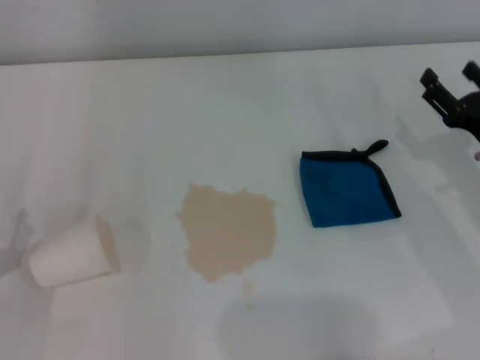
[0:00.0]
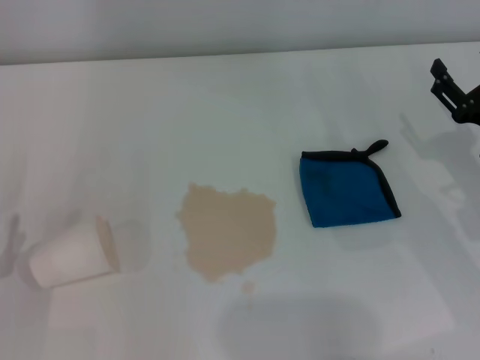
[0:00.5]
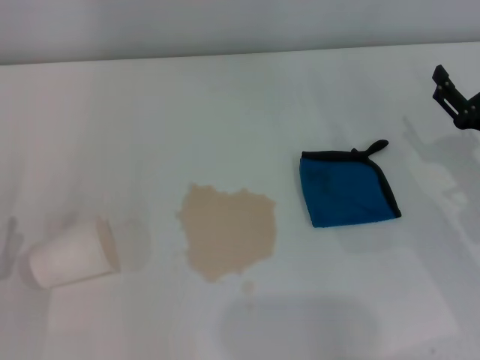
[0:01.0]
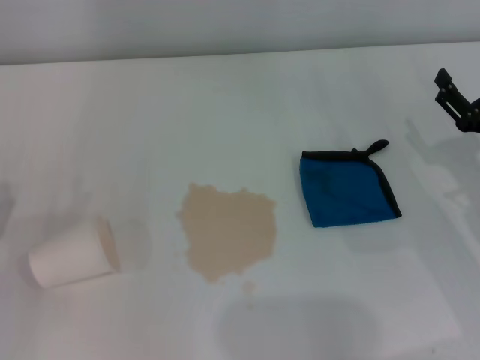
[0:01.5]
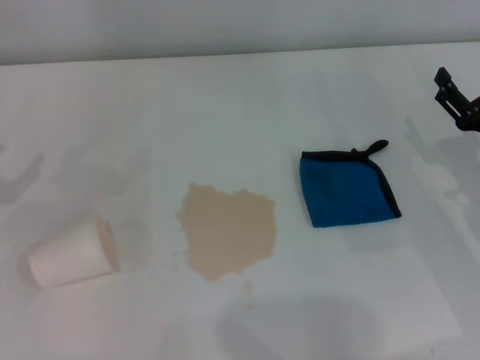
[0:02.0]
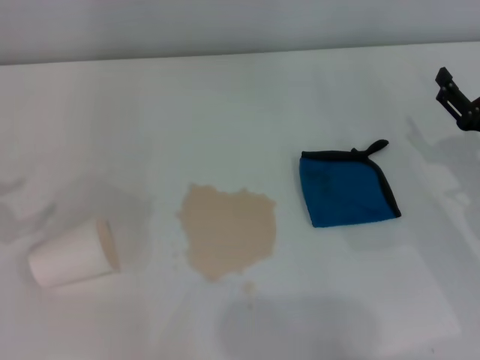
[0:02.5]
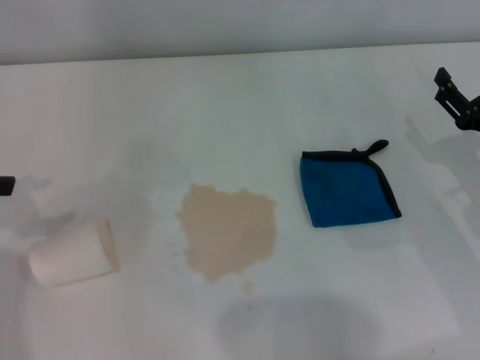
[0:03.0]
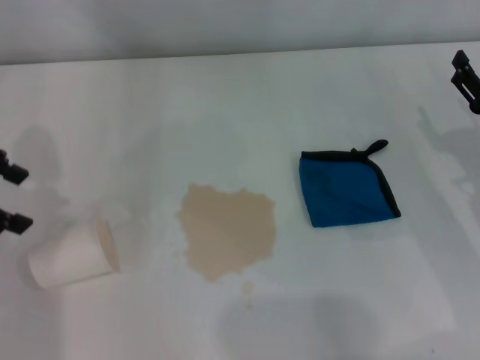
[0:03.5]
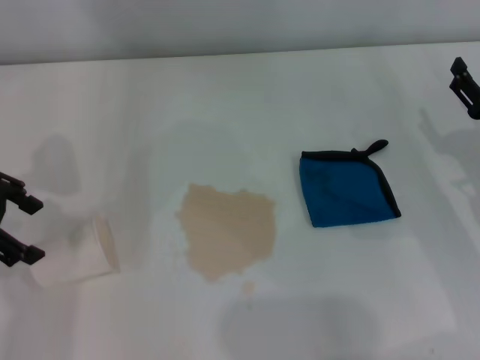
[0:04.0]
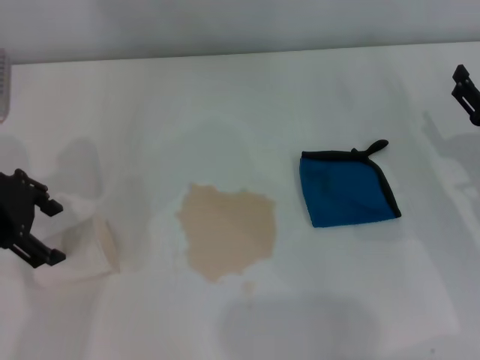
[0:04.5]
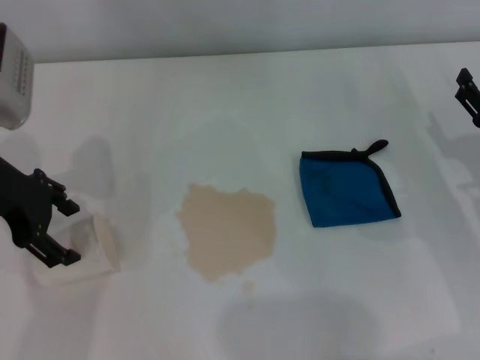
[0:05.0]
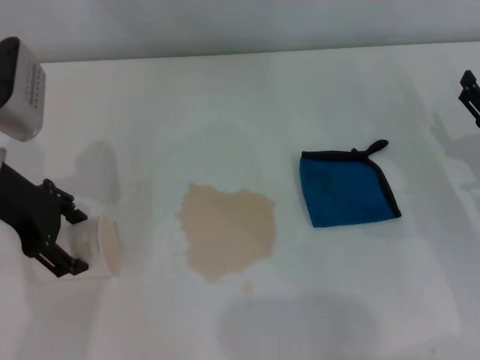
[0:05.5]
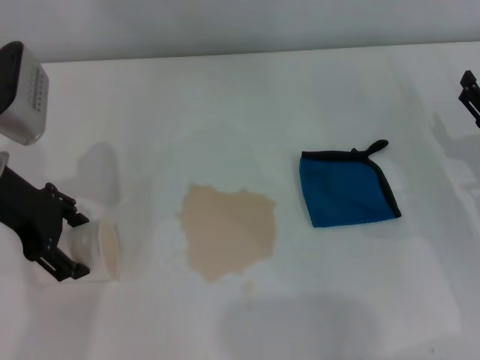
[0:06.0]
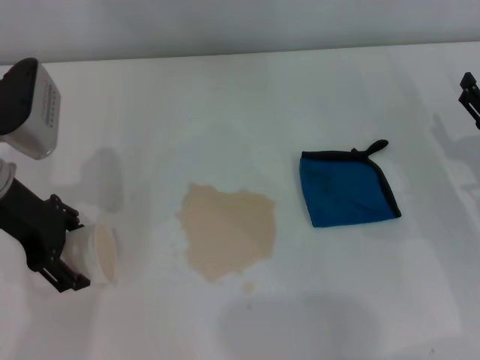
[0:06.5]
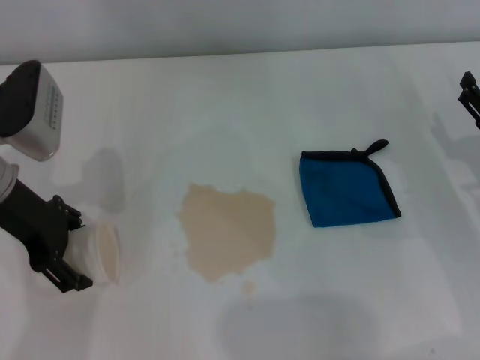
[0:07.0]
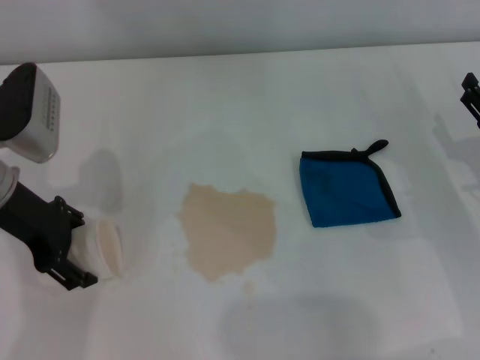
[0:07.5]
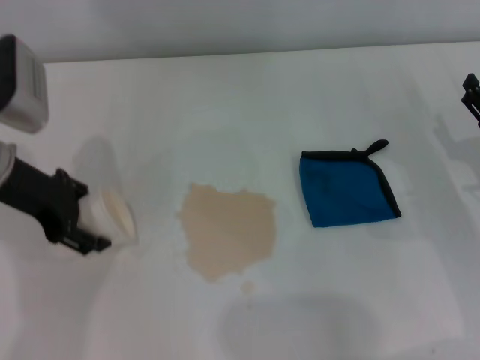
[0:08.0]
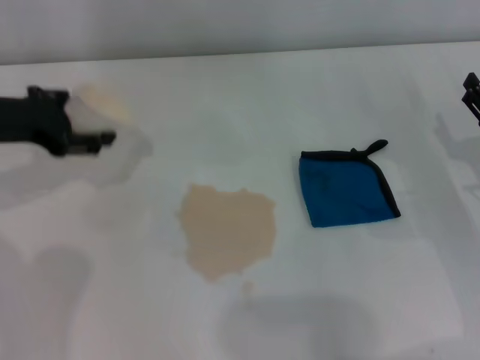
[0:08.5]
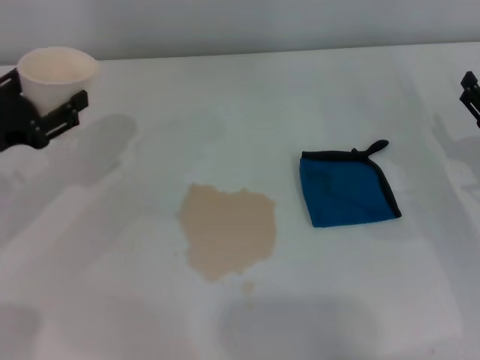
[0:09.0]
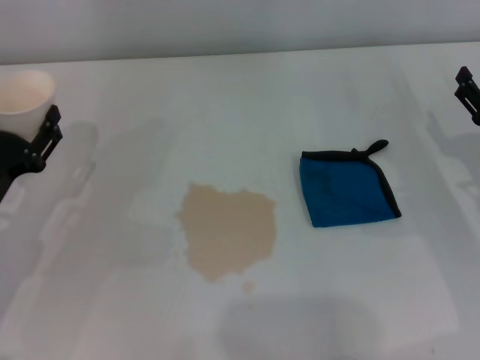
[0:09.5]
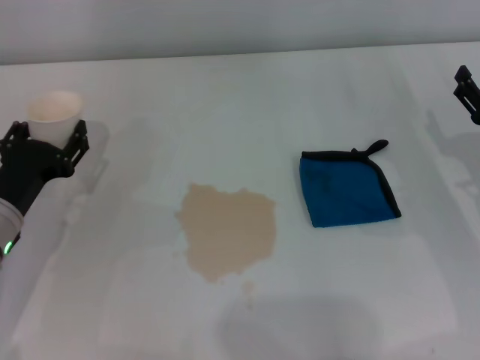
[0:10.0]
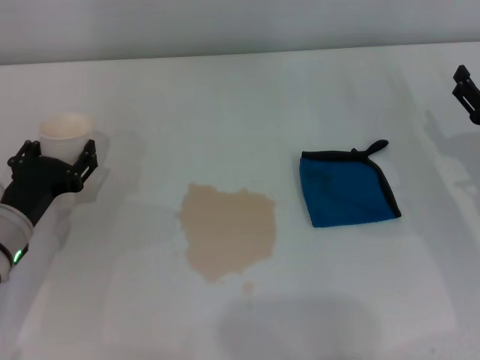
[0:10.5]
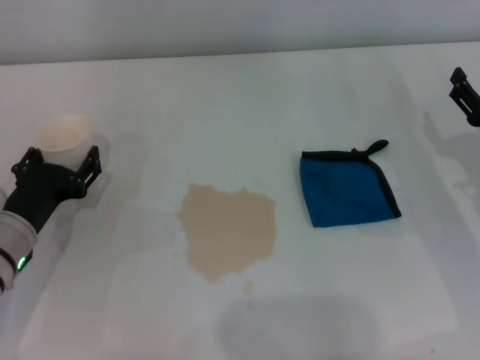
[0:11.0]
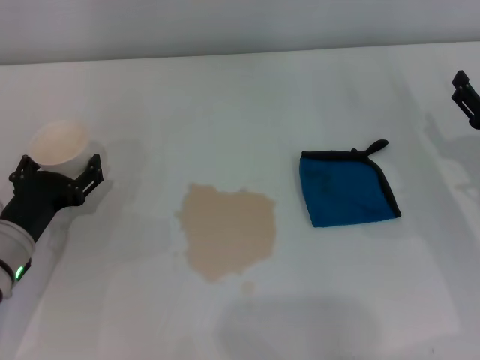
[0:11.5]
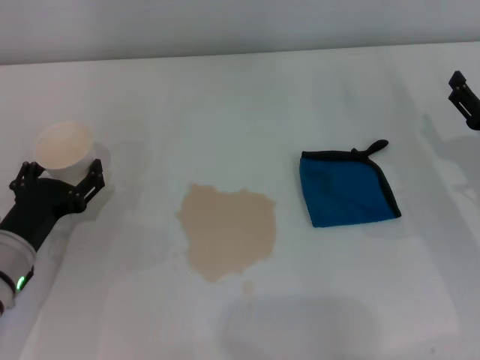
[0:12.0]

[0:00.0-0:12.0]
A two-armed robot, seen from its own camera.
Step, 0:00.0 to 0:06.0: Grasp the paper cup with the left gripper.
Step, 0:06.5 to 0:11.5: Stand the paper cup upright with the left gripper.
0:02.0 to 0:04.0: The left gripper travels upward, to the right and forward by about 15 cm.
0:04.0 to 0:06.0: The left gripper goes roughly 5 cm to the right.
0:06.0 to 0:08.0: The left gripper closes its fingers.
0:08.0 to 0:10.0: The left gripper heads downward and backward, covering approximately 15 cm, and closes up.
0:10.0 to 0:12.0: The left gripper opens up.

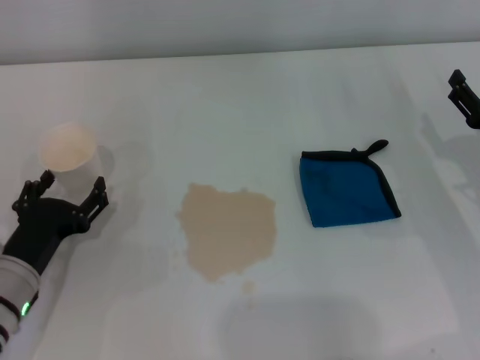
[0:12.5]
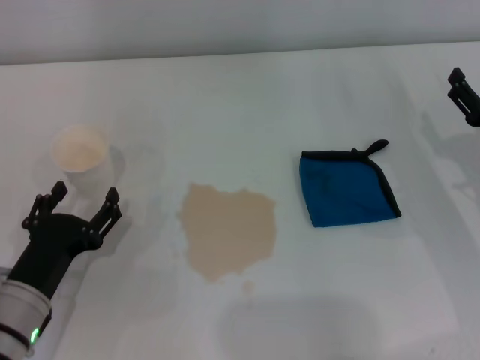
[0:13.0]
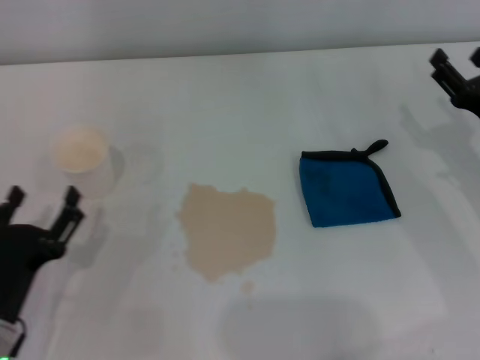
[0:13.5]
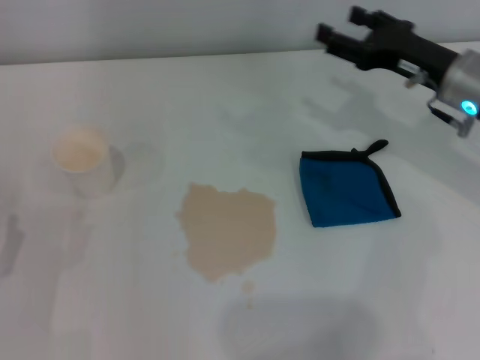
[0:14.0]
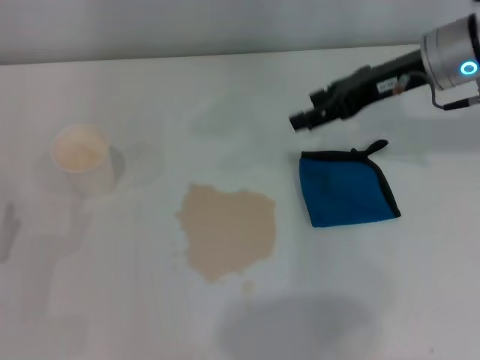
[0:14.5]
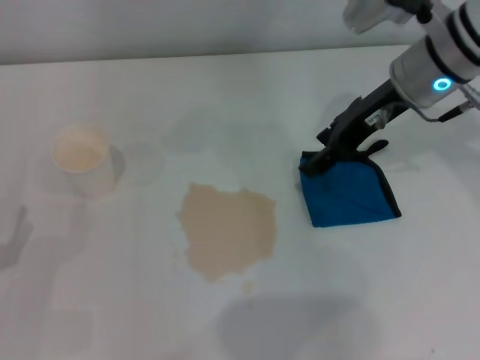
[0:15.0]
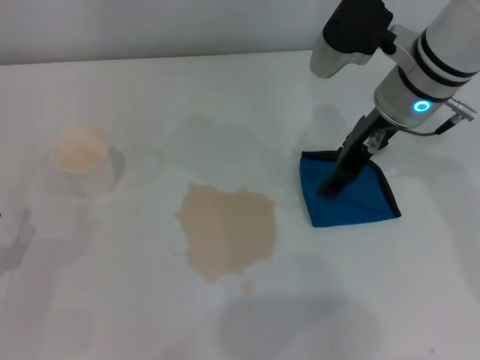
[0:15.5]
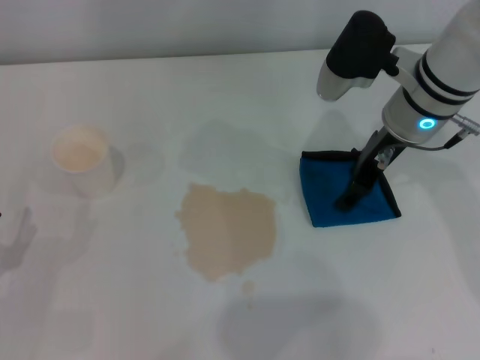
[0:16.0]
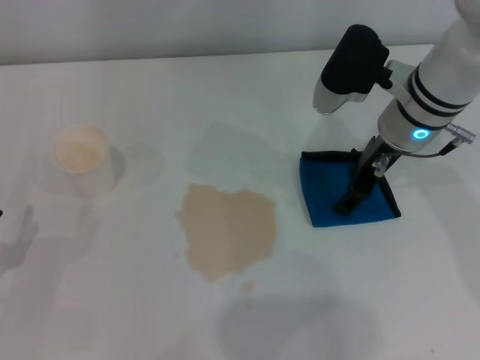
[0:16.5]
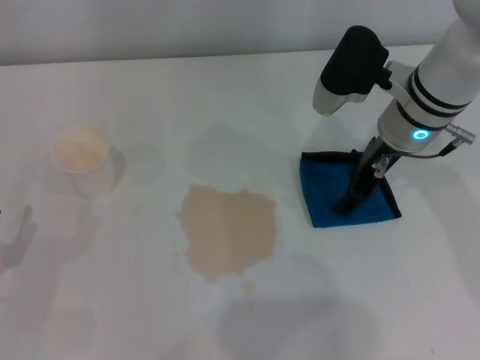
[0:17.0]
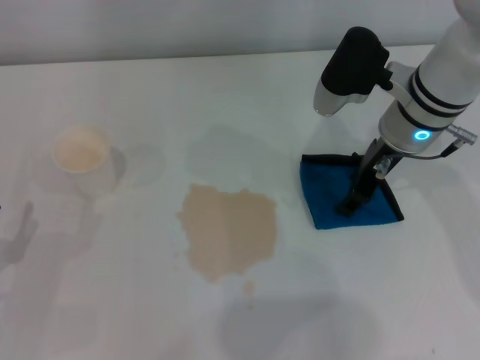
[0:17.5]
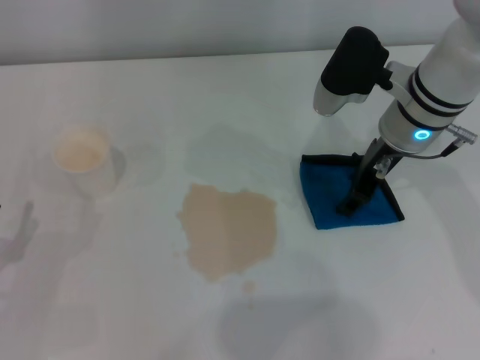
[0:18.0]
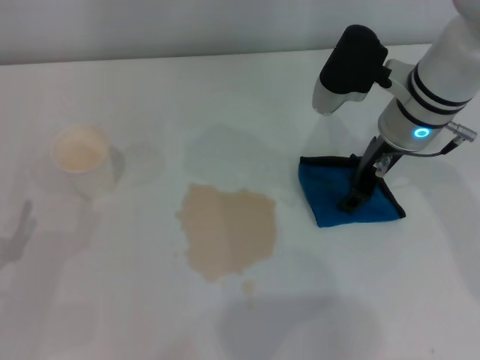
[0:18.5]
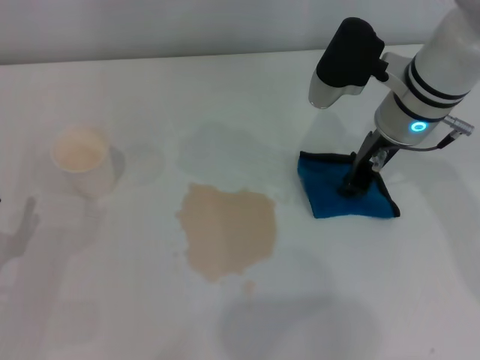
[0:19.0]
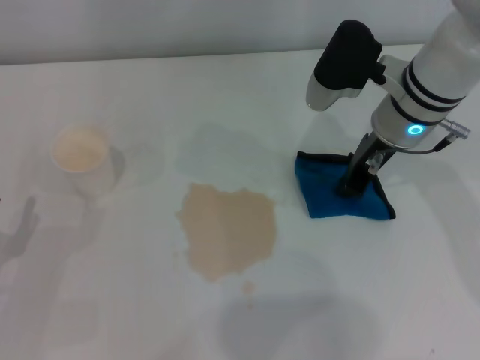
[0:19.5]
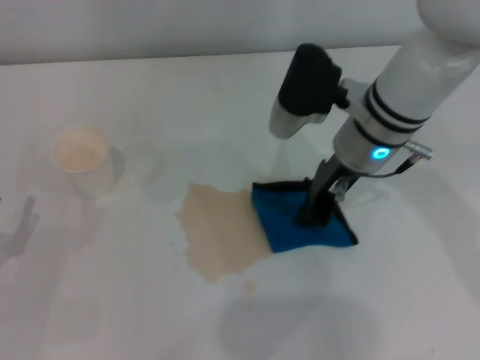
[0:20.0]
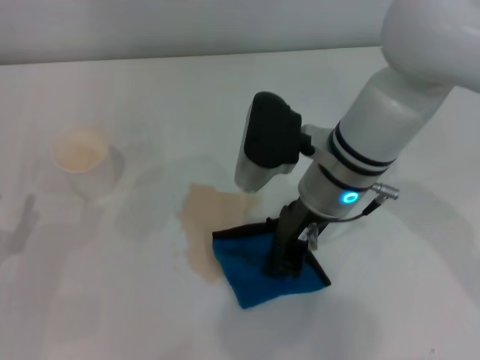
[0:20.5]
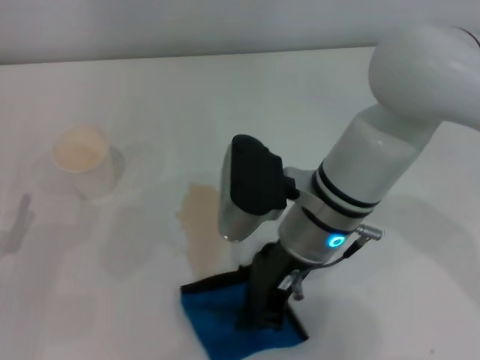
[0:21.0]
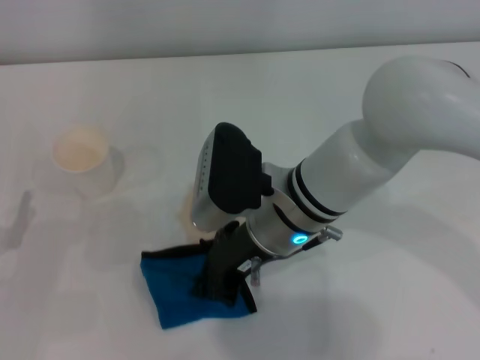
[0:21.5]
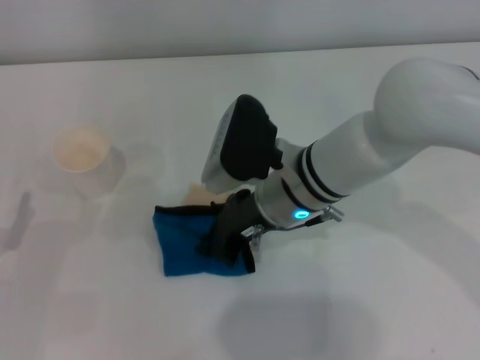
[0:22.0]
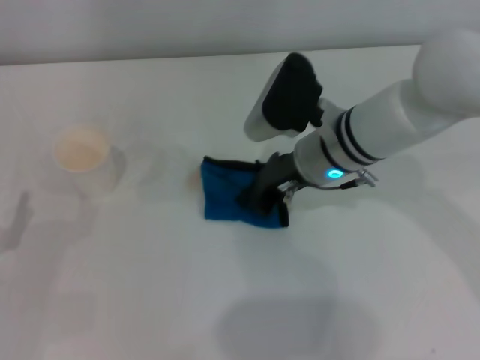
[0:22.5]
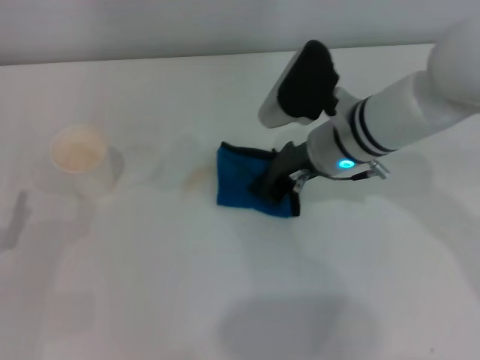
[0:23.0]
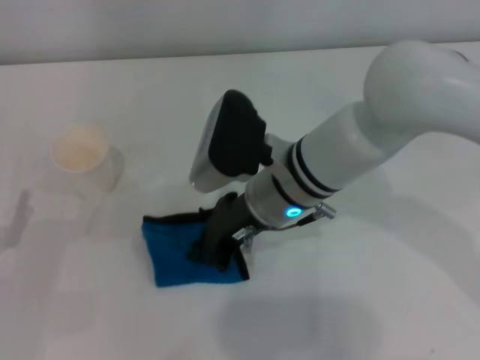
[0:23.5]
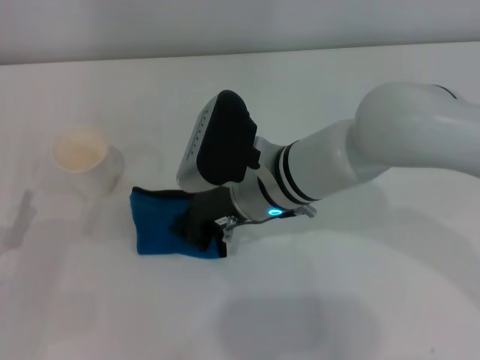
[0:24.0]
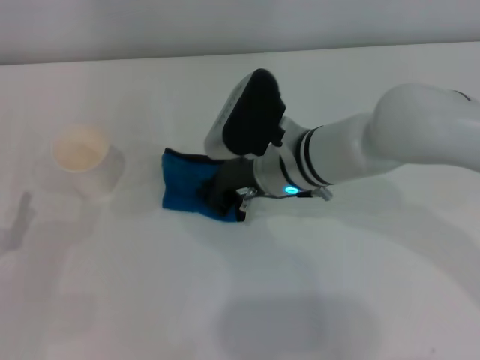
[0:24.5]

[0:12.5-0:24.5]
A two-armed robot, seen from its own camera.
Step, 0:12.5 to 0:19.0: Grasp the rag with the right gripper.
0:12.5 to 0:14.5: The right gripper shifts some 20 cm upward, forward and to the left. Meanwhile the left gripper is displaced to the left and backward by approximately 10 cm.
0:14.5 to 0:16.5: The right gripper is displaced to the left and downward by approximately 5 cm.
0:16.5 to 0:18.5: Both grippers stay about where they are.
0:18.5 to 0:20.5: The right gripper goes some 10 cm to the left and backward, and closes up.

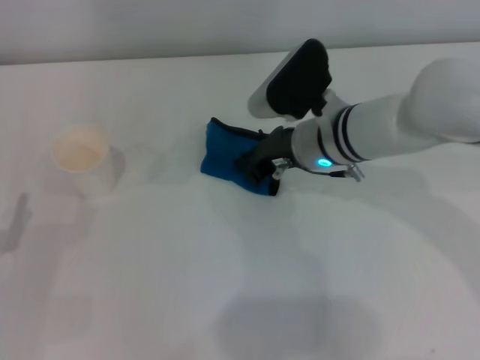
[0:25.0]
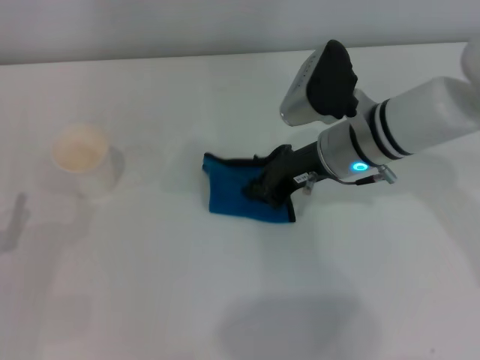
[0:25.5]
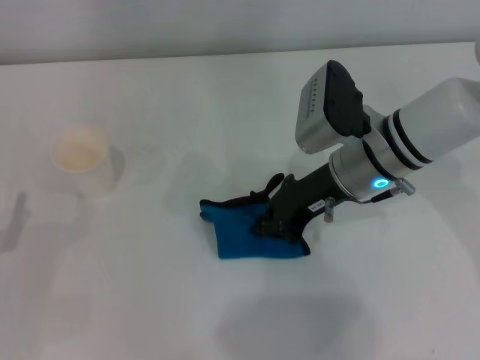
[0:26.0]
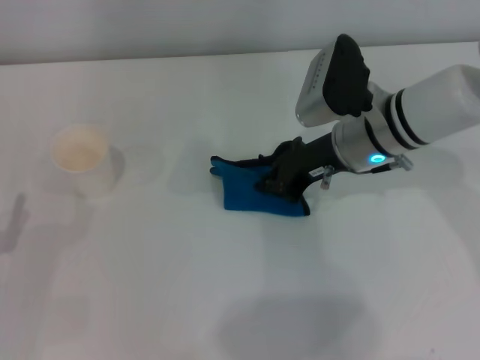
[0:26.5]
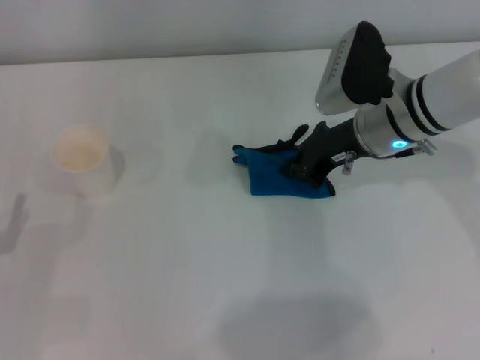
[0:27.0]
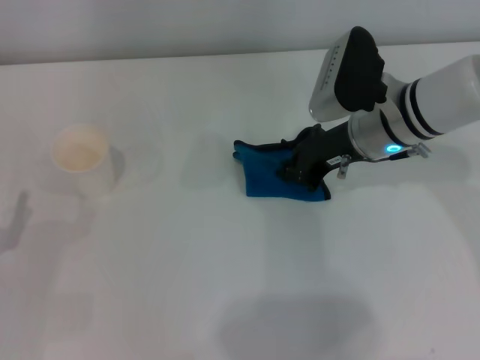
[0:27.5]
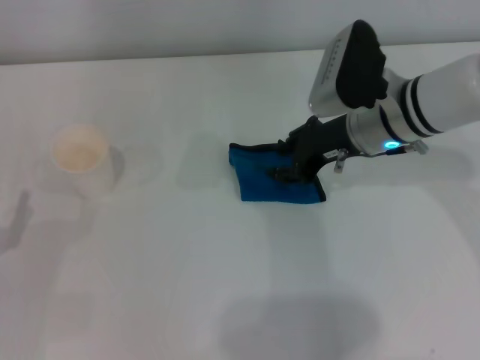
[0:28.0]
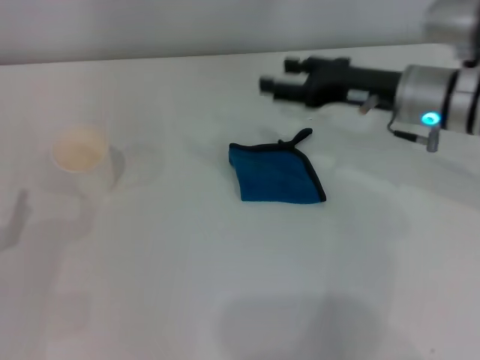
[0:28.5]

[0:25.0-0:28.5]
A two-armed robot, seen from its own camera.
Step, 0:27.0 to 0:27.5: Place the rag on the table with the right gripper.
0:25.0 to 0:27.0: The right gripper goes about 5 cm to the right.
0:27.0 to 0:28.5: The right gripper opens up.
